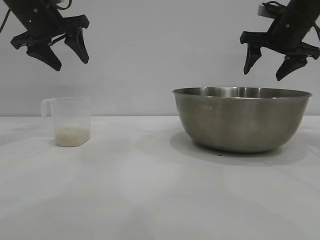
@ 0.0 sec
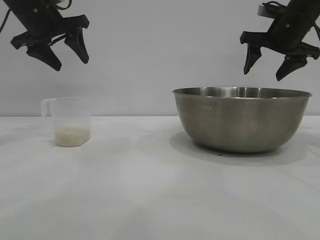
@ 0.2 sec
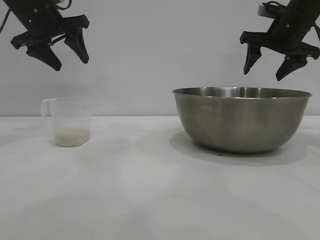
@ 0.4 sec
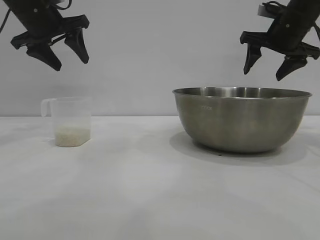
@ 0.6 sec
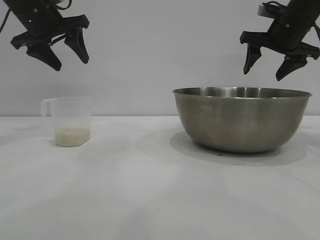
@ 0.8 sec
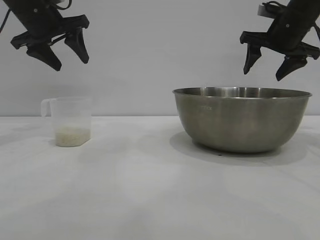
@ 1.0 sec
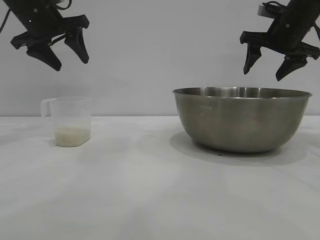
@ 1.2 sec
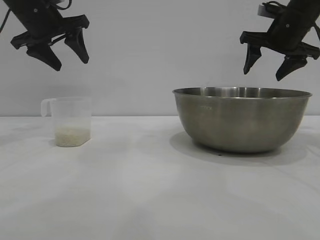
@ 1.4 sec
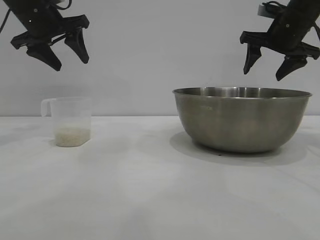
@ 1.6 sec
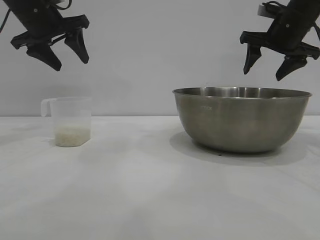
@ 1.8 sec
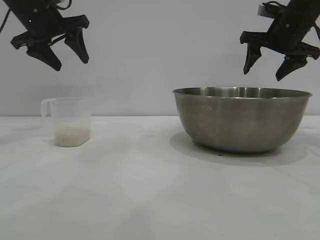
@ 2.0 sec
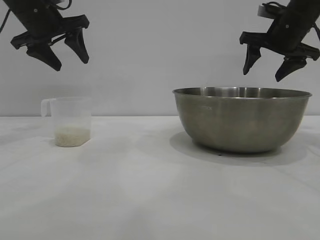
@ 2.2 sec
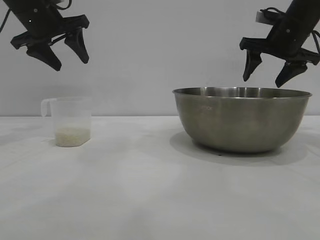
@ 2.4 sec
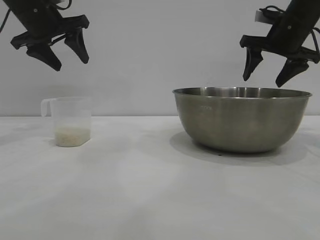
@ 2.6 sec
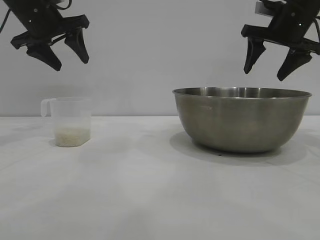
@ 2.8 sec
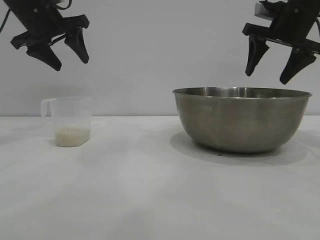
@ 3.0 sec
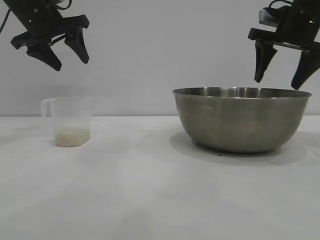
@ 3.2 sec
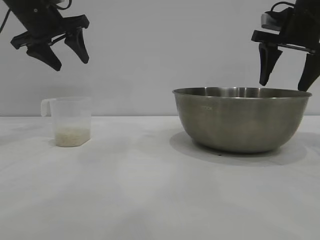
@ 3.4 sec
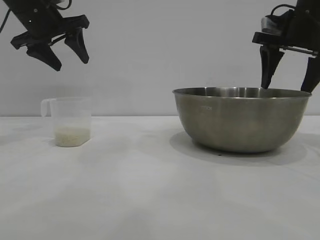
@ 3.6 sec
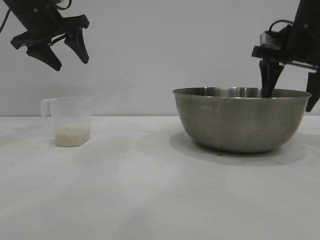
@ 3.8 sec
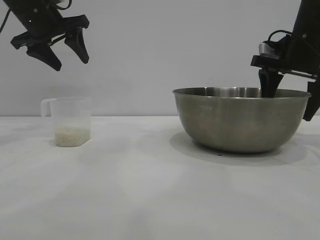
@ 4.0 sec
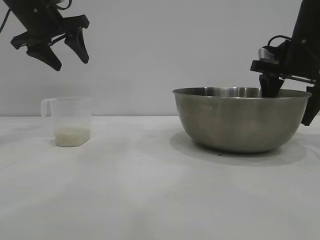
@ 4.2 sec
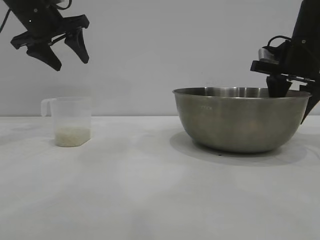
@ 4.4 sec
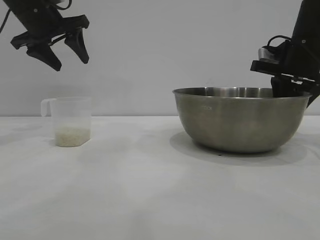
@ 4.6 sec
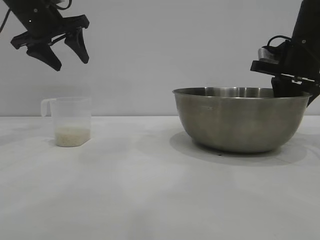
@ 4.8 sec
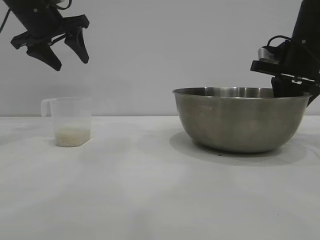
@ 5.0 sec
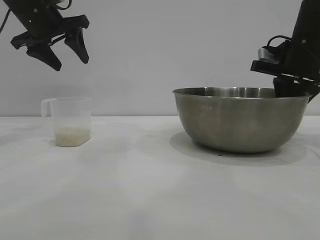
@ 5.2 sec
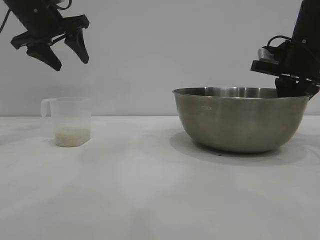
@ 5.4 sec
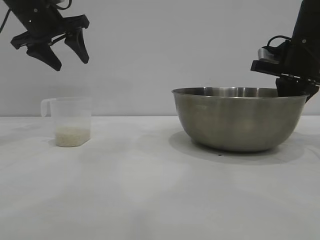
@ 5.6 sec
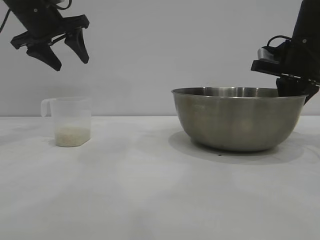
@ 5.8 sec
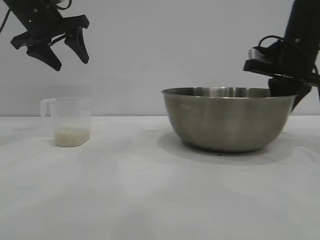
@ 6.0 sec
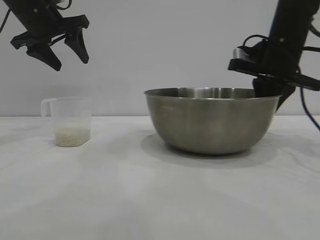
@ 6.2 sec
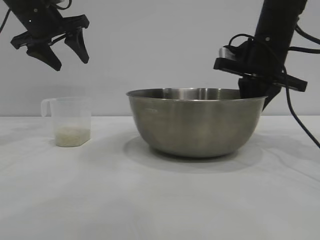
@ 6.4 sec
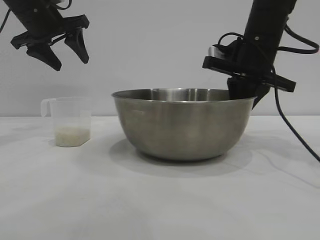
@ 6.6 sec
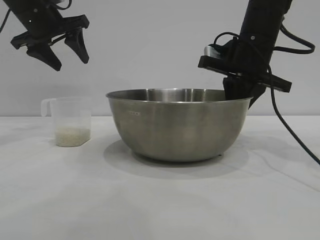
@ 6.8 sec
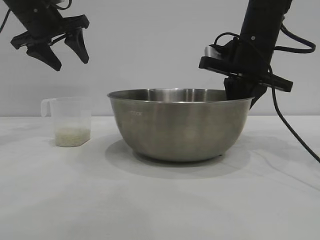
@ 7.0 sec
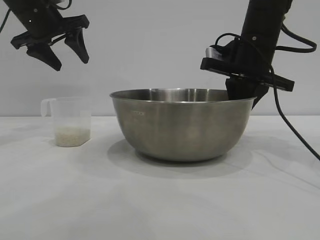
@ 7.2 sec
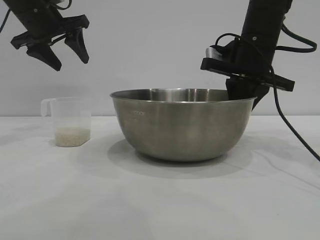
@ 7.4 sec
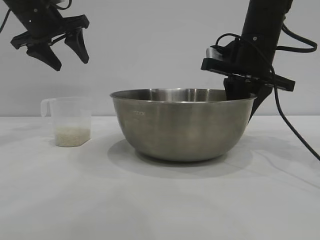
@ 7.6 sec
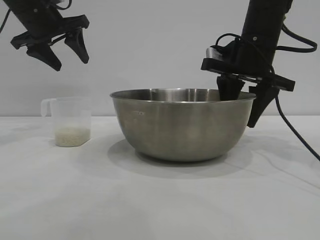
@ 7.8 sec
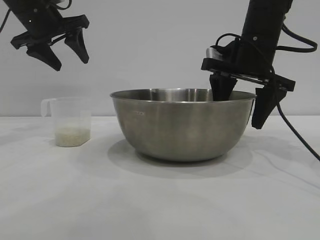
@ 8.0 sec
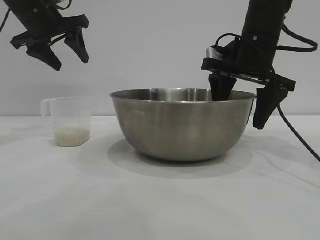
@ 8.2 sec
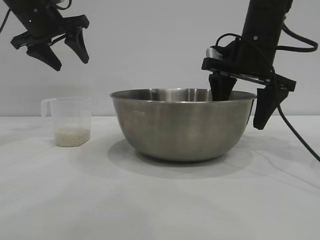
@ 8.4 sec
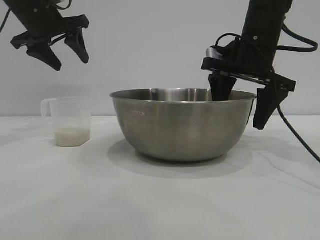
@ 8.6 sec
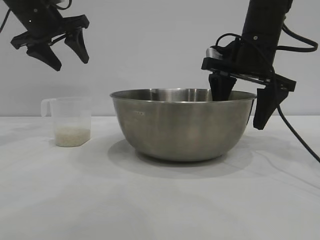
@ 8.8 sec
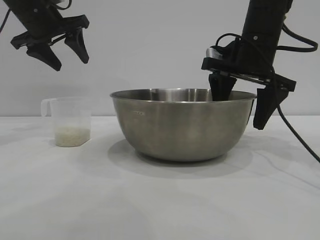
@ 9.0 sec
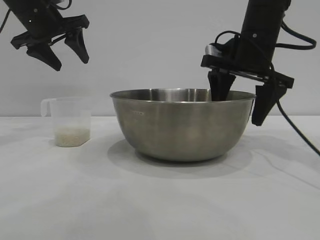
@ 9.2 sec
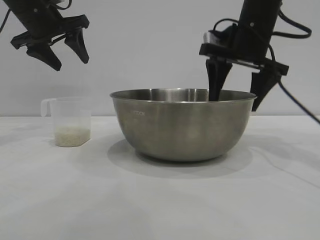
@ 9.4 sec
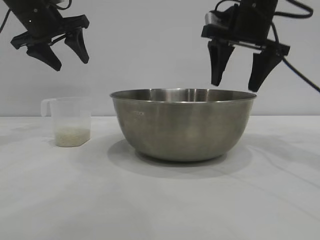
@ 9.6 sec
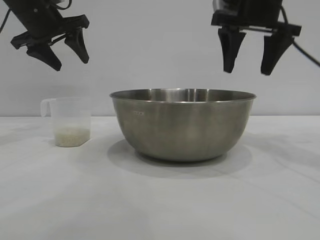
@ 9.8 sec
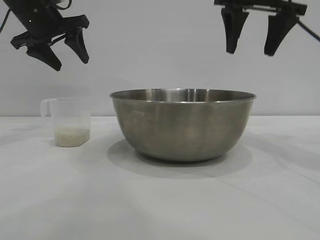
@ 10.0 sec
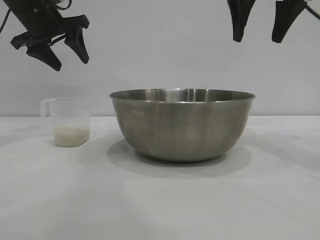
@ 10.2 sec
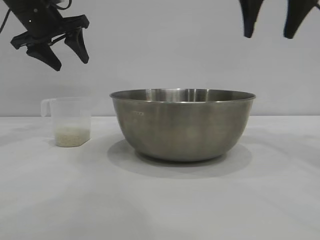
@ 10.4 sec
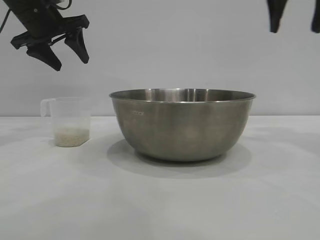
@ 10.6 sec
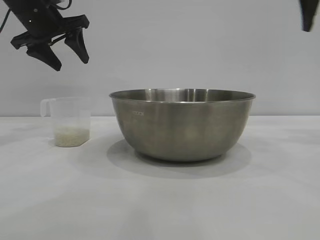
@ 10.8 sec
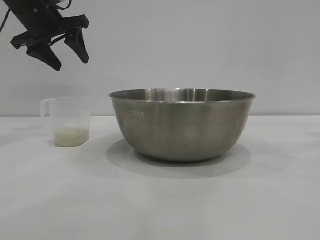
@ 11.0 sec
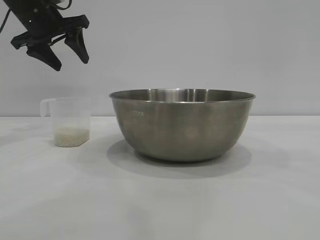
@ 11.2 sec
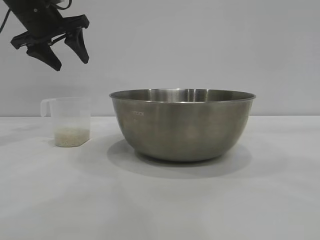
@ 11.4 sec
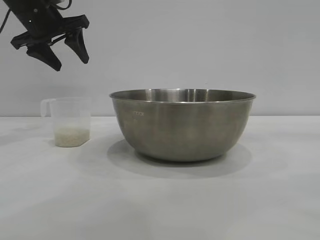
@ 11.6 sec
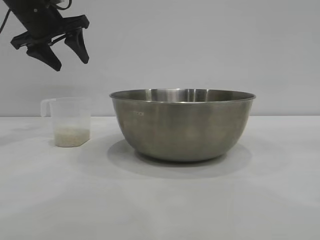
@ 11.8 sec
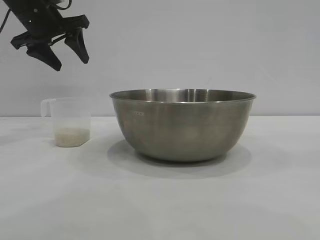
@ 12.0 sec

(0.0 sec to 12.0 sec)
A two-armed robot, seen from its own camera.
Task of the whole recording: the right gripper grasp the rice container and place it in the center of the table, the left gripper grasp the rice scoop and pour the rice into the rice container.
Step, 0.0 sec - 9.8 sec: Move the bowl to the center of view with the right gripper.

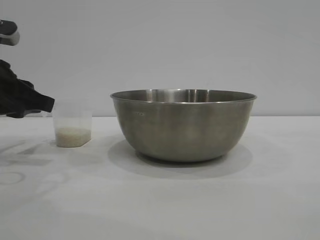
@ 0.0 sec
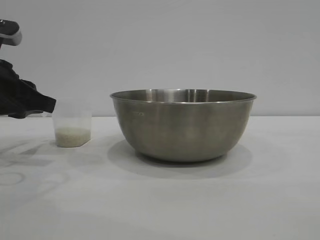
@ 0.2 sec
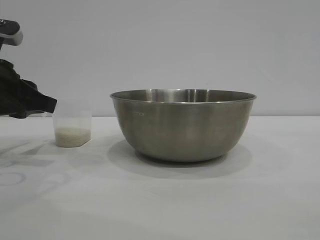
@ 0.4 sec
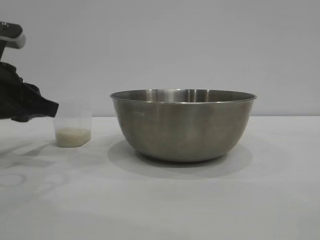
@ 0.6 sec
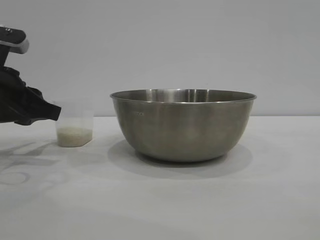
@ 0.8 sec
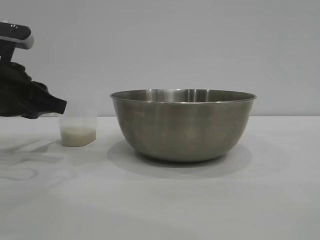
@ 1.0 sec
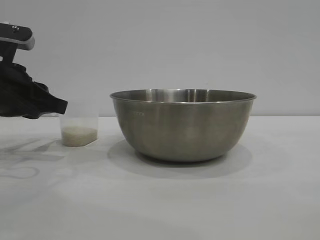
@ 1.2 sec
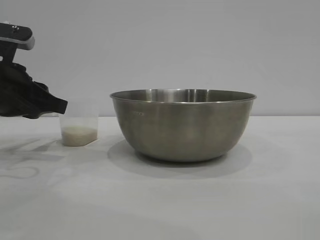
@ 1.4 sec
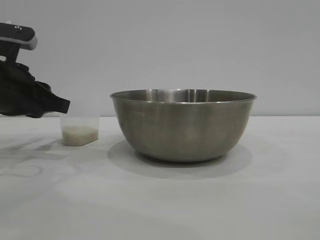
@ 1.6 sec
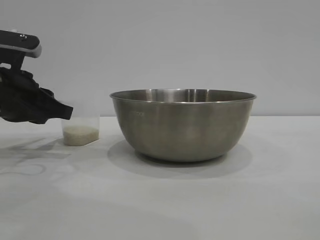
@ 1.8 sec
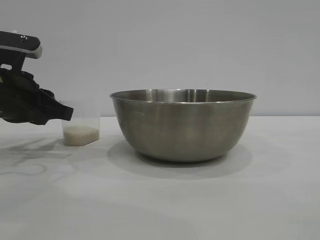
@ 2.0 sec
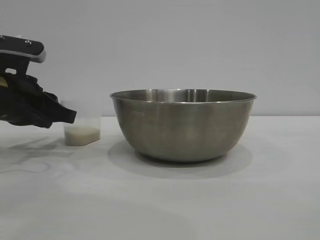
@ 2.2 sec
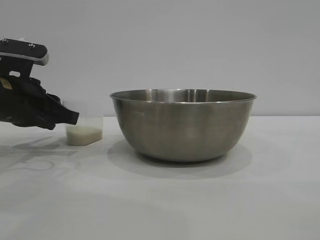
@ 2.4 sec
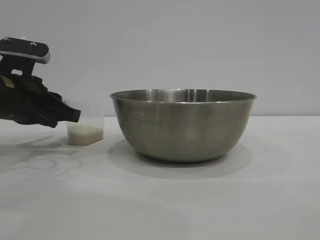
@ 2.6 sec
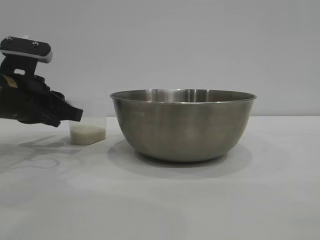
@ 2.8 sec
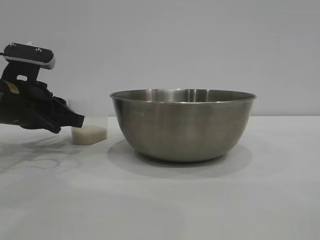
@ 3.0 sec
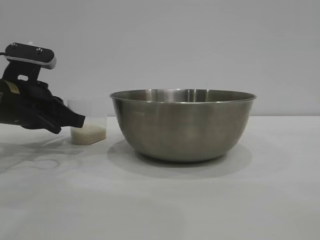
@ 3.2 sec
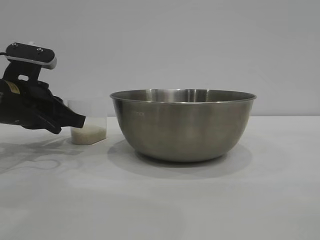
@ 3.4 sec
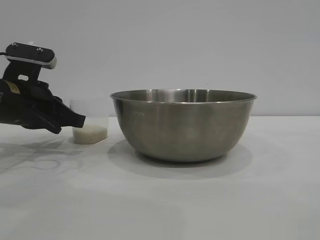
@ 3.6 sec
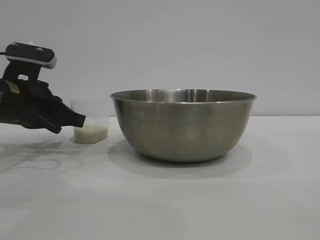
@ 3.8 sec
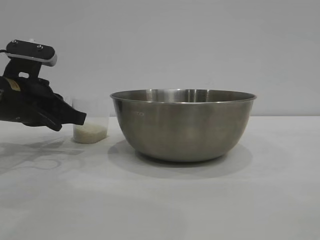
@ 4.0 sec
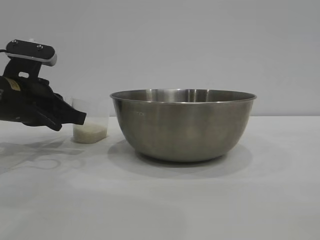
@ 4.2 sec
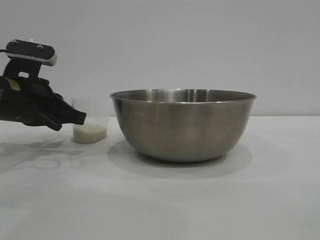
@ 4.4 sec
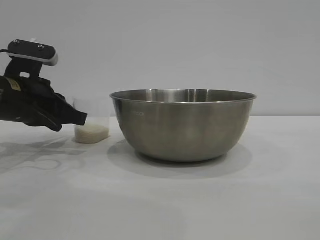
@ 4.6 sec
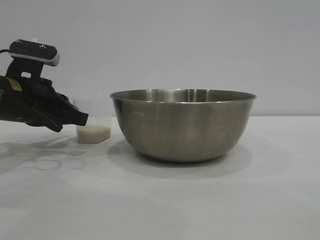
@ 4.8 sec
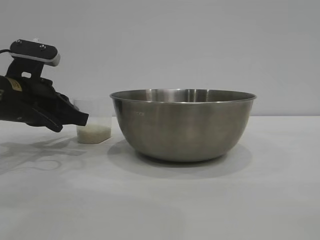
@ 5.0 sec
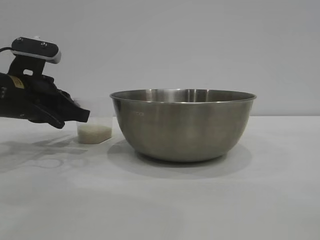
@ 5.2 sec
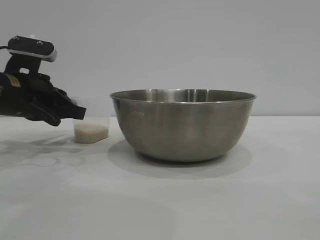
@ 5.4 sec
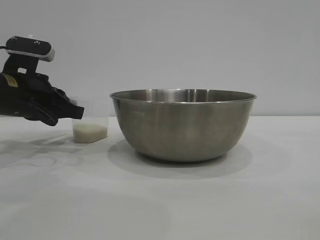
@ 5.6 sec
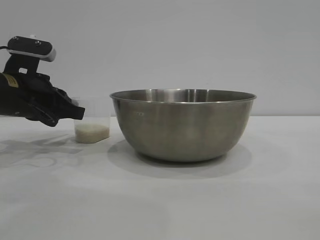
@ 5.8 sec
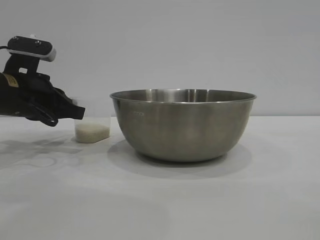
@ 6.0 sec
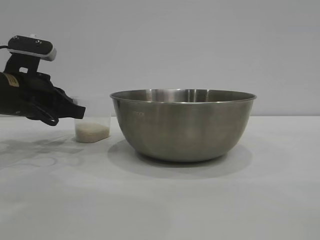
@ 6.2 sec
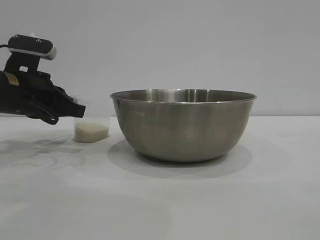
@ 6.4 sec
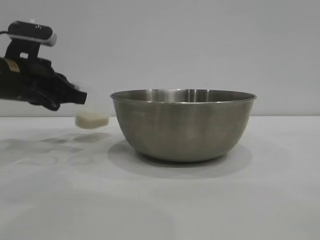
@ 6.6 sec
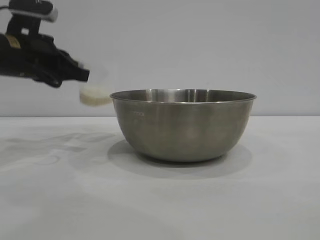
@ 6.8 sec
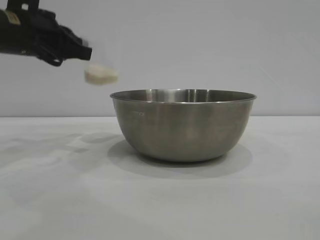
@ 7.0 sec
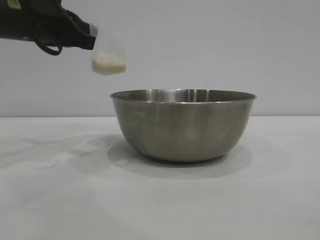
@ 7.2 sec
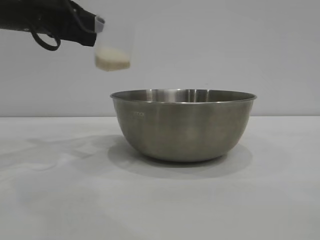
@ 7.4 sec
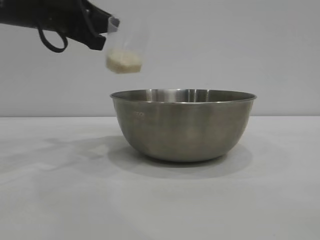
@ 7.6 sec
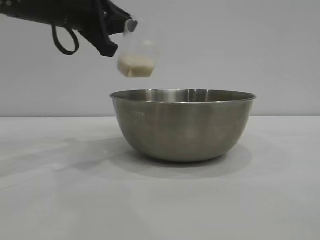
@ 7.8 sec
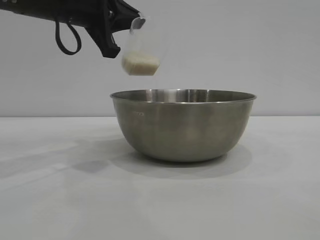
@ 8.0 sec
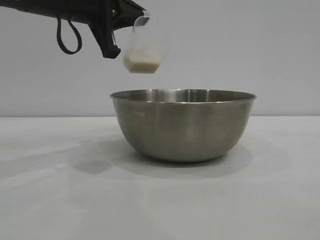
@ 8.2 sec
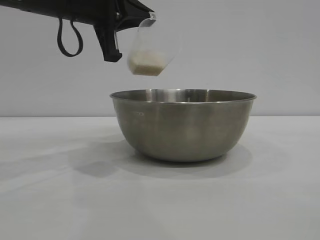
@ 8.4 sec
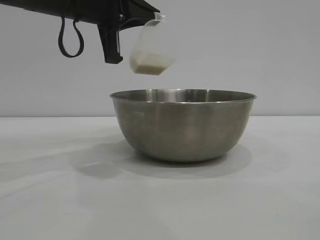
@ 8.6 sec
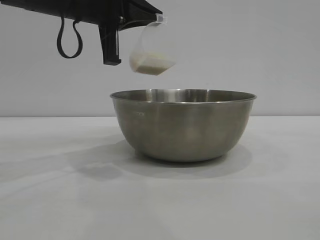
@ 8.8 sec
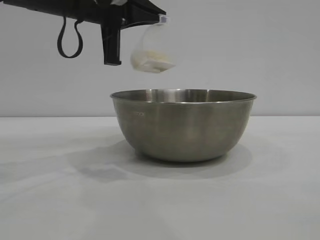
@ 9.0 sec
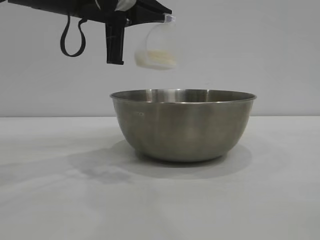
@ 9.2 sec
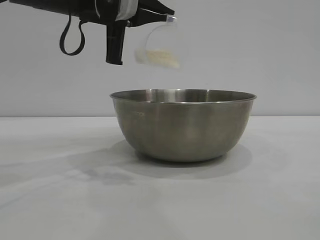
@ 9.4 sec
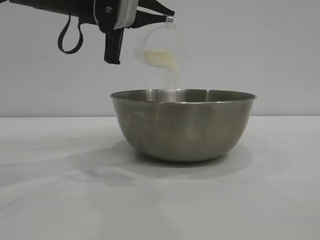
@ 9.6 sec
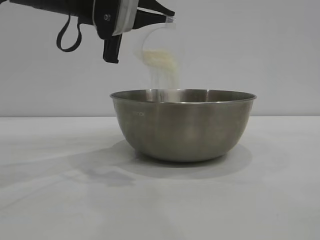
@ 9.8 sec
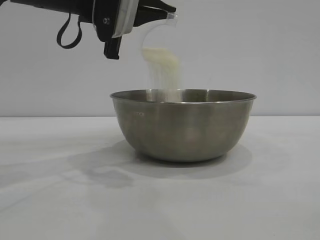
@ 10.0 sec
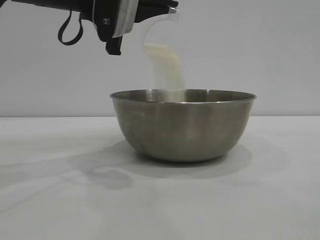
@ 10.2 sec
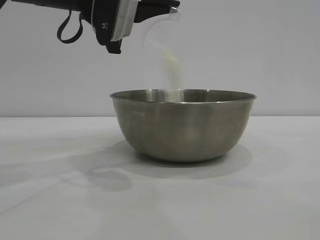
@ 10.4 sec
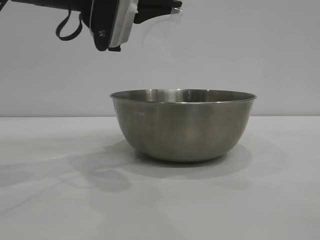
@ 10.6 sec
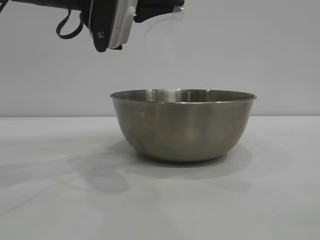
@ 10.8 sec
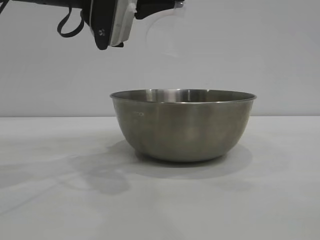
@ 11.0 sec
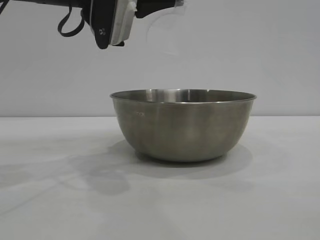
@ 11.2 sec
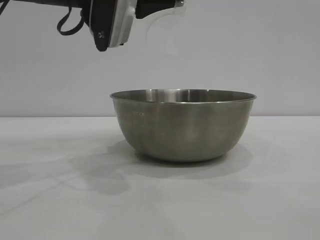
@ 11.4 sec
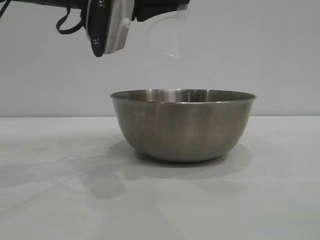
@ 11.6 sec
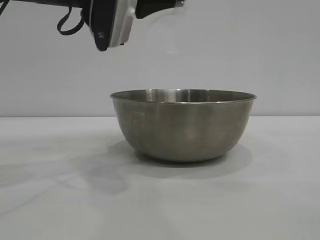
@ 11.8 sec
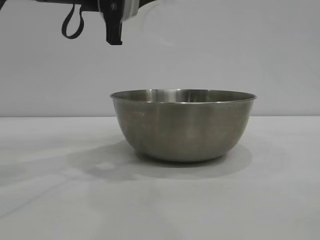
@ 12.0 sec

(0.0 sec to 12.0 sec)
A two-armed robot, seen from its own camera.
Task of the whole recording: the right gripper grasp the rice container and place it in the center of the table, the left gripper grasp the rice scoop and pour the rice into the rice container.
Step, 0.0 sec - 6.6 sec: Pick up the cup with rice in it with the left gripper.
Step, 6.8 sec - 12.0 sec: Pour the rice from the cup into the bowl with the left gripper.
